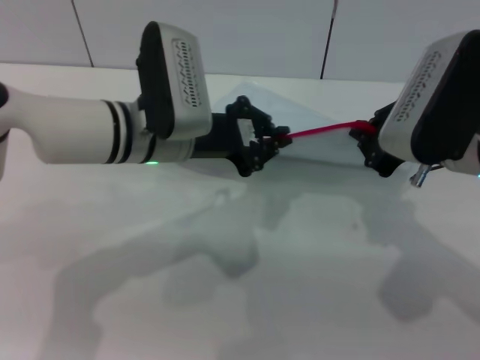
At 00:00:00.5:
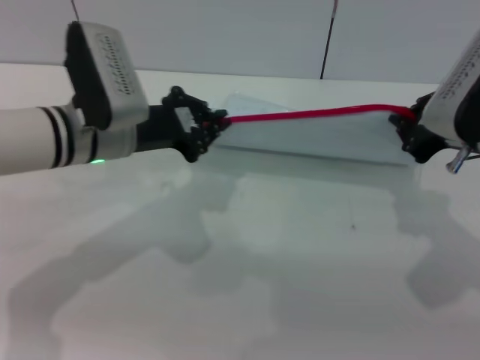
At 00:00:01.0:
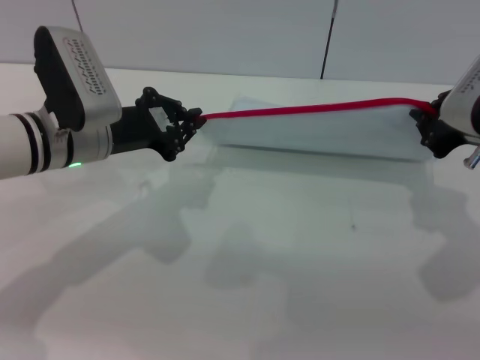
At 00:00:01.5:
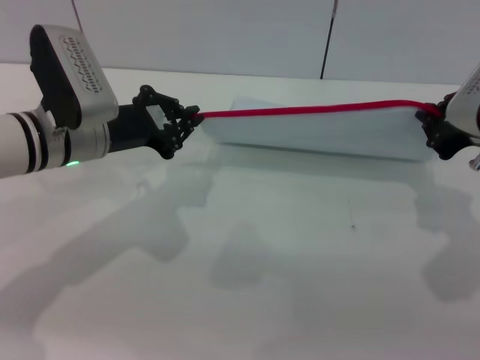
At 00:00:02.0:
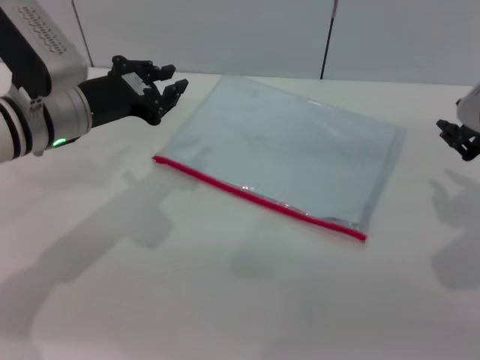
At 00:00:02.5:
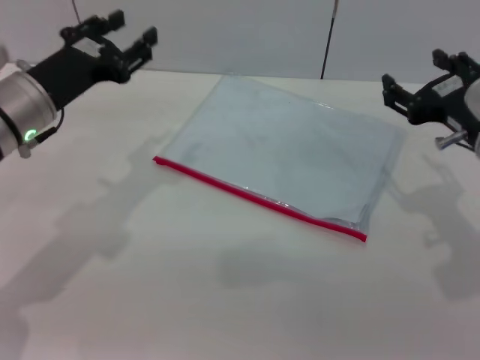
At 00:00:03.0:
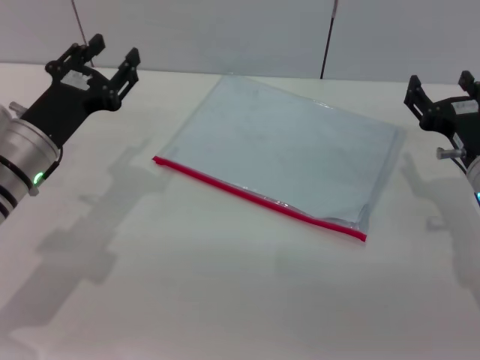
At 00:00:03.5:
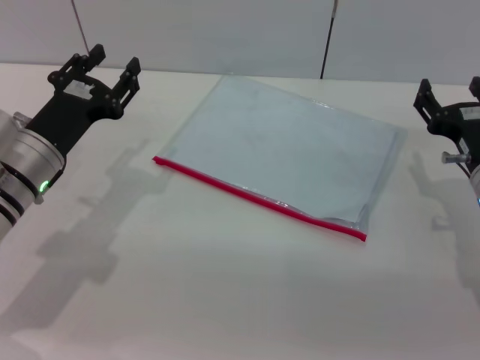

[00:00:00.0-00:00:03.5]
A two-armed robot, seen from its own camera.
Step, 00:00:02.0 to 00:00:02.5: Place the transparent plastic bag.
00:00:00.0 to 00:00:02.0: The right gripper is displaced to the right by about 5 cm, while the left gripper goes roughly 10 cm to the left.
00:00:02.0 to 00:00:03.5: The left gripper shifts approximately 5 cm downward, and opens up, while the right gripper goes about 10 cm downward, and opens.
